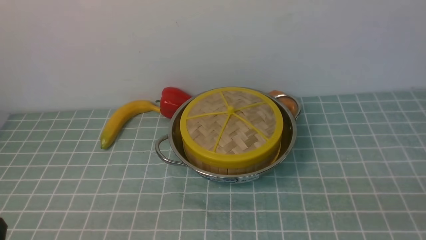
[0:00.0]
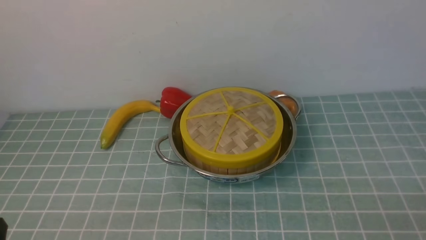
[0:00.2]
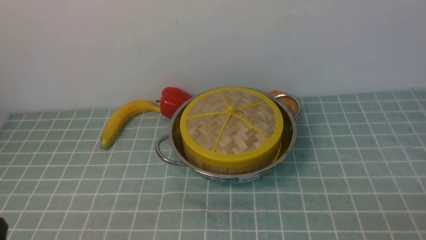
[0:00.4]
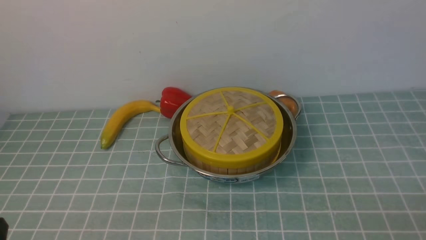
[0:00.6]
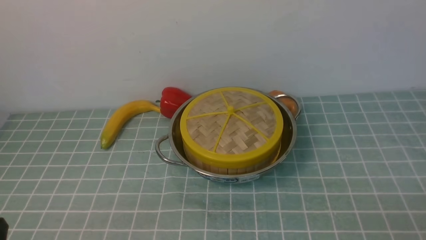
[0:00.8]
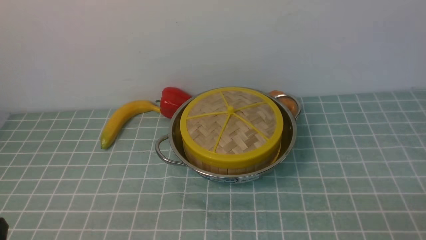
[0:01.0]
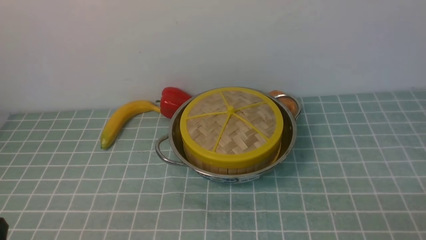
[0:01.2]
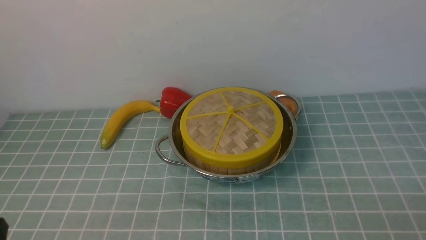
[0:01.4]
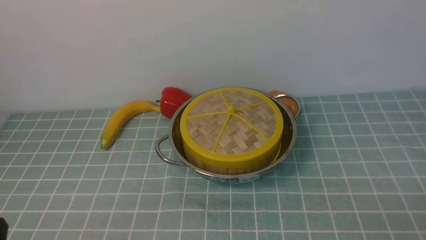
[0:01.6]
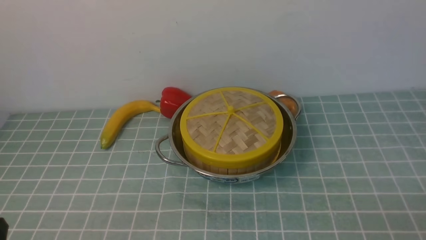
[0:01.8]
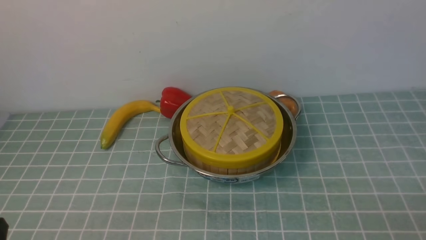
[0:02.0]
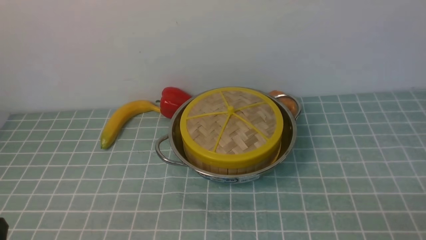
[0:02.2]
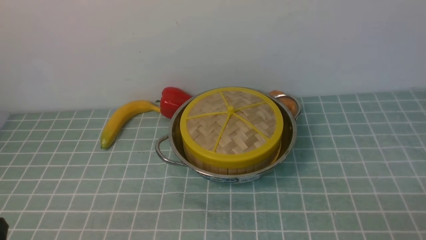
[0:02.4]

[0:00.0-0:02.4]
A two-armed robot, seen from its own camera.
Task of the whole recording: place the steamer in the pot on the blue tablecloth, and put the lid on the steamer.
0:01.2 to 0:02.4: Neither gripper changes place.

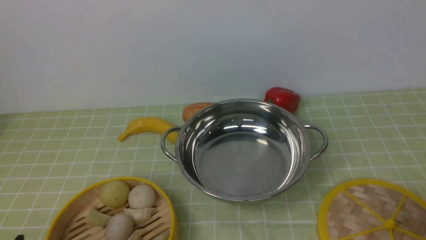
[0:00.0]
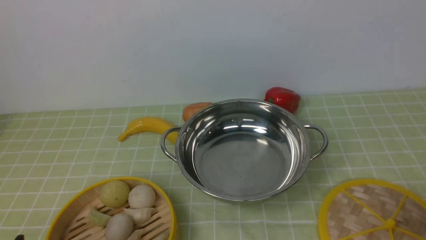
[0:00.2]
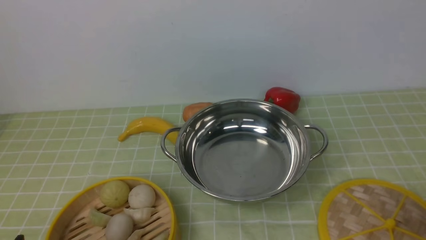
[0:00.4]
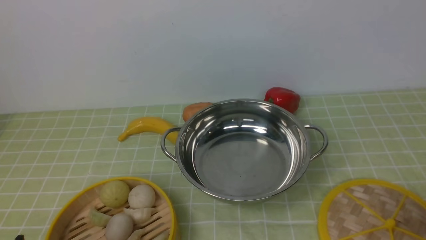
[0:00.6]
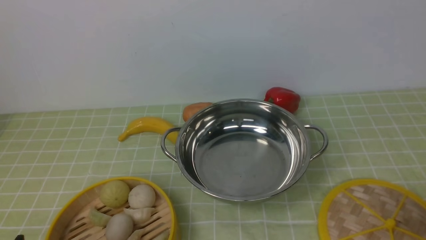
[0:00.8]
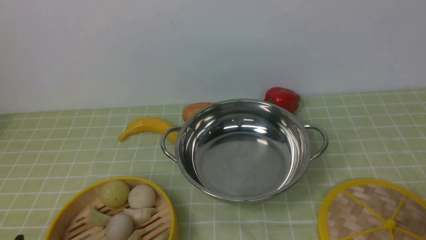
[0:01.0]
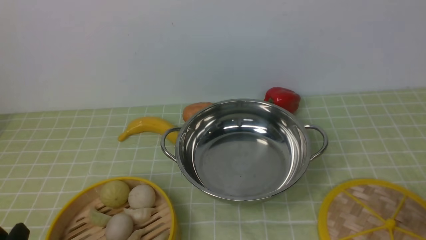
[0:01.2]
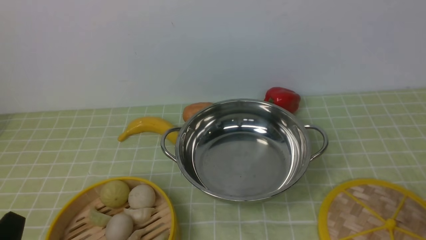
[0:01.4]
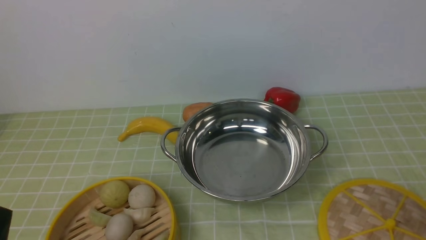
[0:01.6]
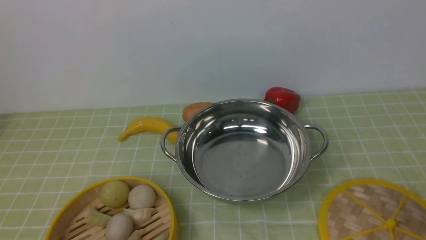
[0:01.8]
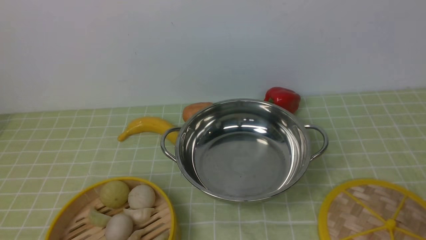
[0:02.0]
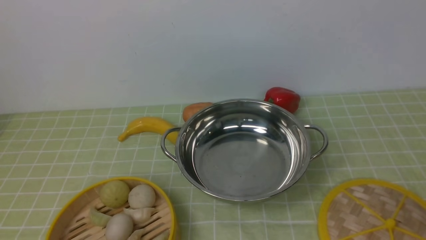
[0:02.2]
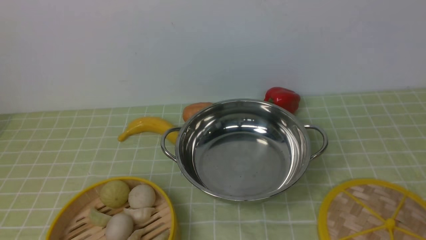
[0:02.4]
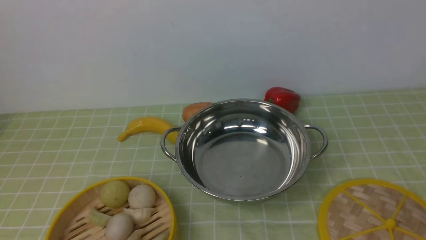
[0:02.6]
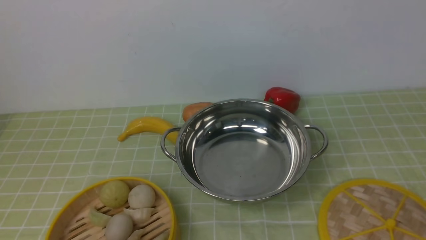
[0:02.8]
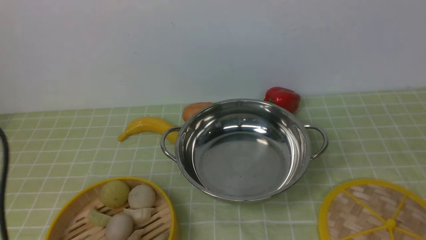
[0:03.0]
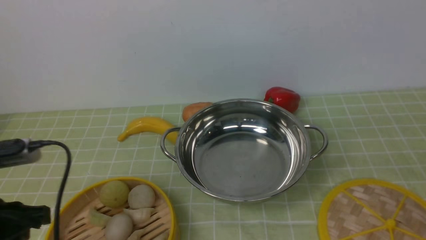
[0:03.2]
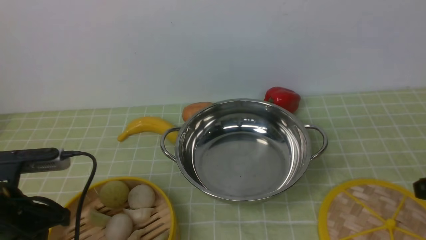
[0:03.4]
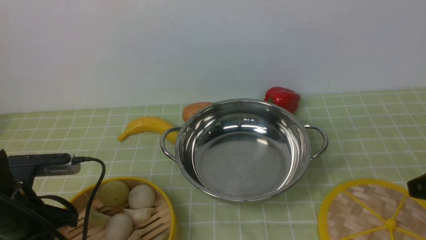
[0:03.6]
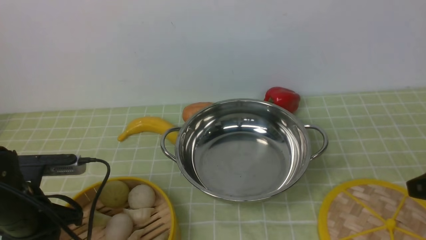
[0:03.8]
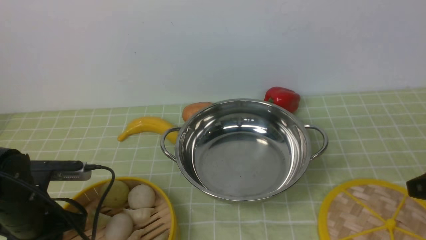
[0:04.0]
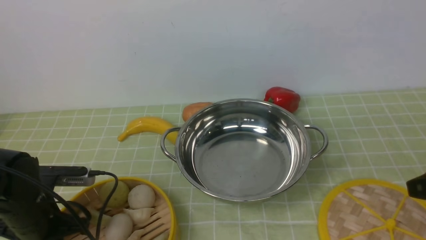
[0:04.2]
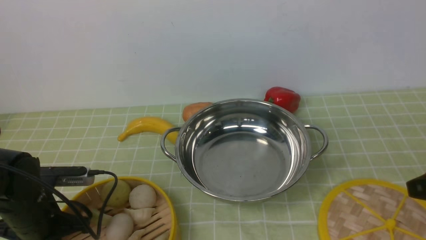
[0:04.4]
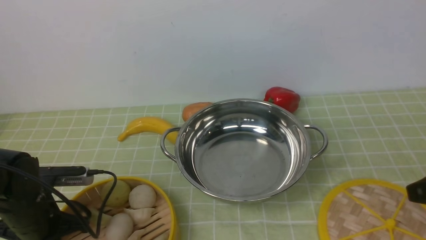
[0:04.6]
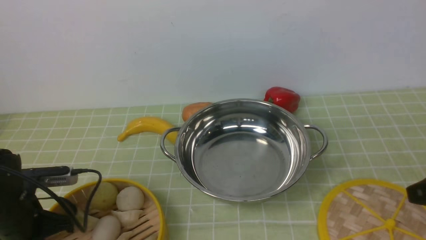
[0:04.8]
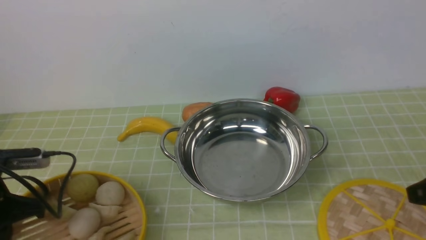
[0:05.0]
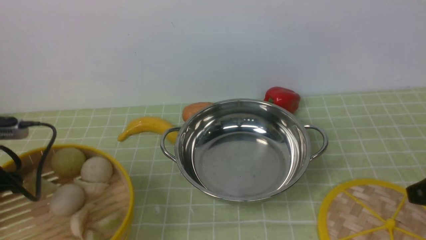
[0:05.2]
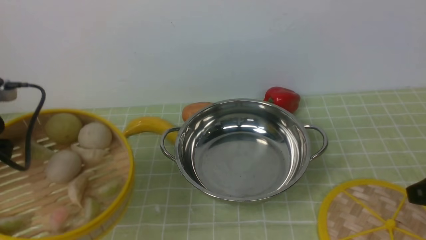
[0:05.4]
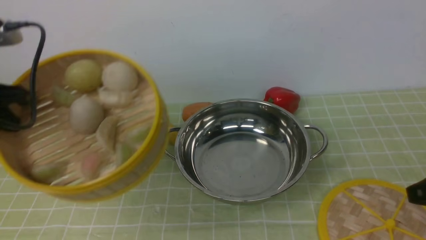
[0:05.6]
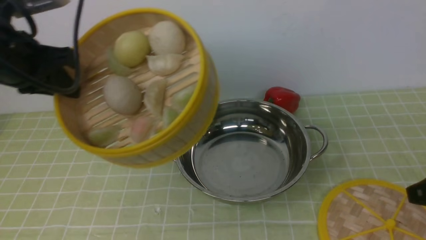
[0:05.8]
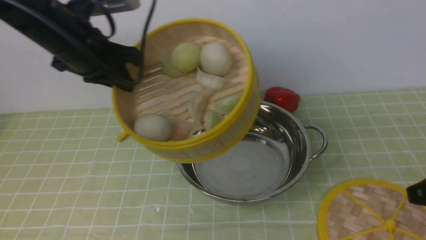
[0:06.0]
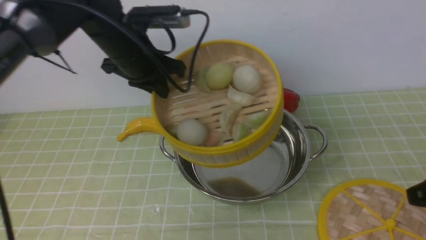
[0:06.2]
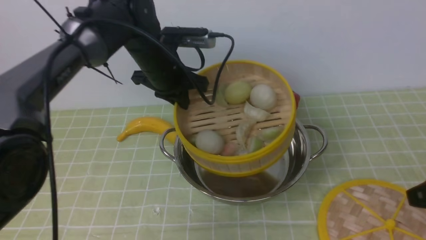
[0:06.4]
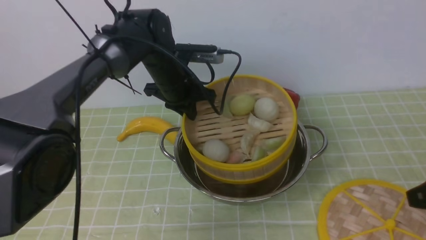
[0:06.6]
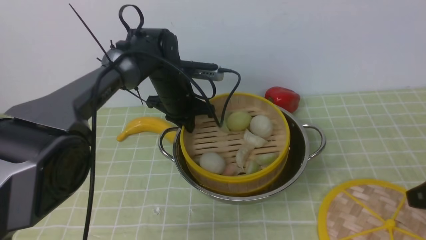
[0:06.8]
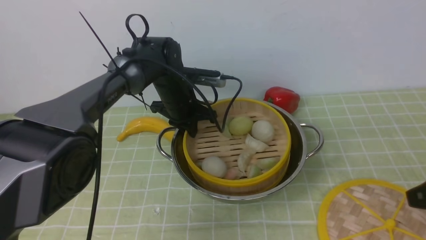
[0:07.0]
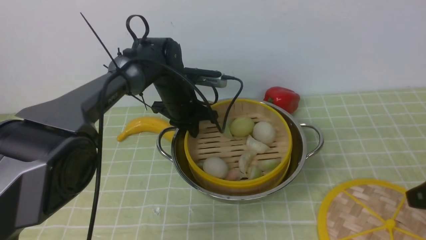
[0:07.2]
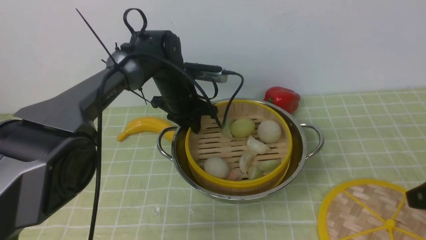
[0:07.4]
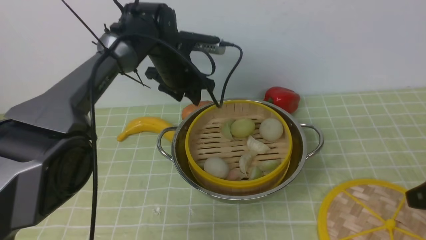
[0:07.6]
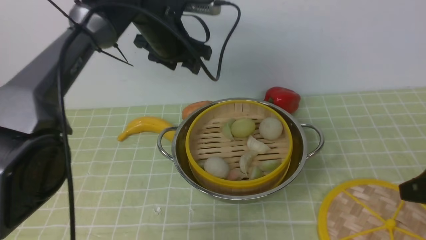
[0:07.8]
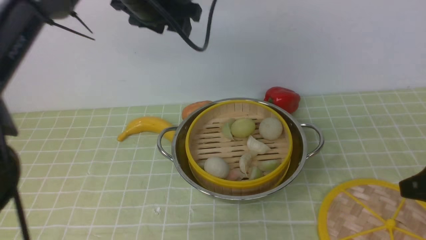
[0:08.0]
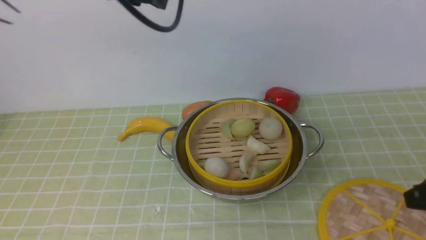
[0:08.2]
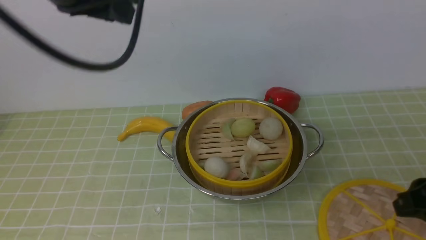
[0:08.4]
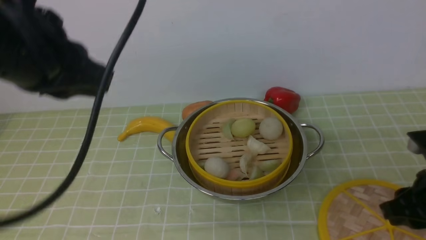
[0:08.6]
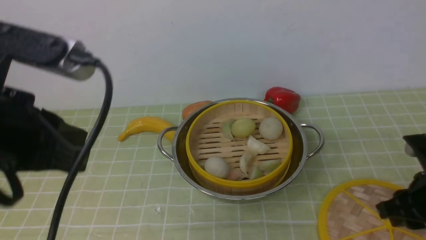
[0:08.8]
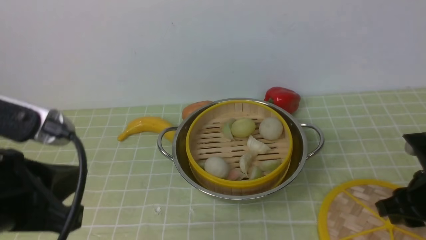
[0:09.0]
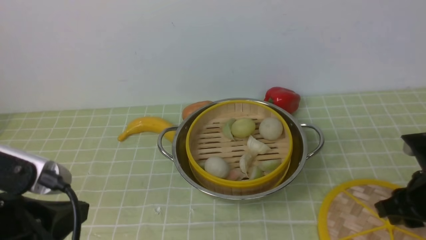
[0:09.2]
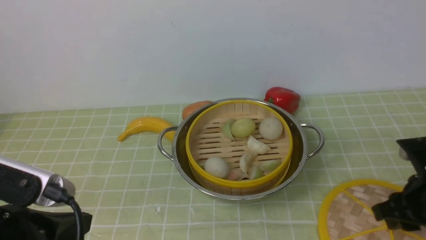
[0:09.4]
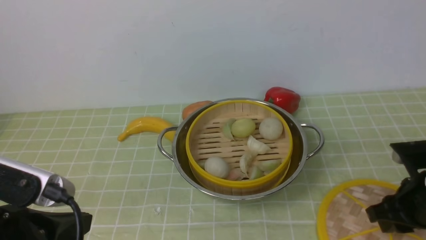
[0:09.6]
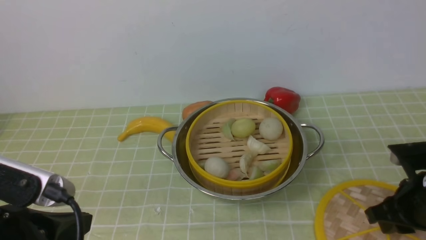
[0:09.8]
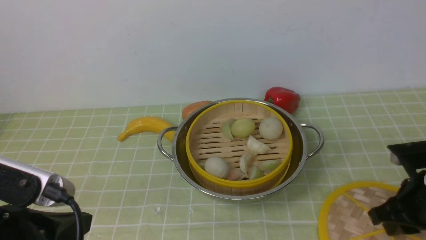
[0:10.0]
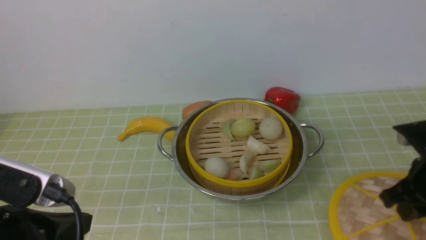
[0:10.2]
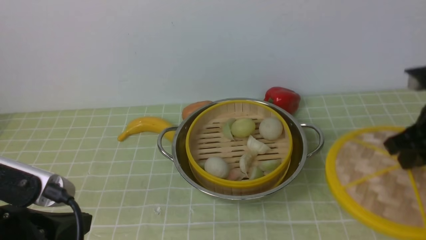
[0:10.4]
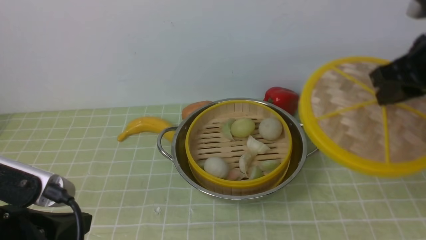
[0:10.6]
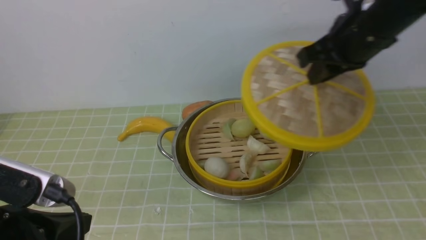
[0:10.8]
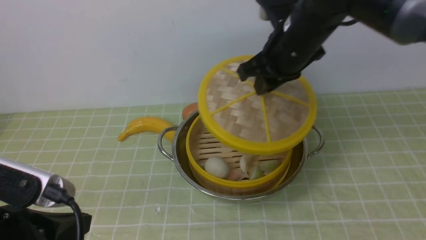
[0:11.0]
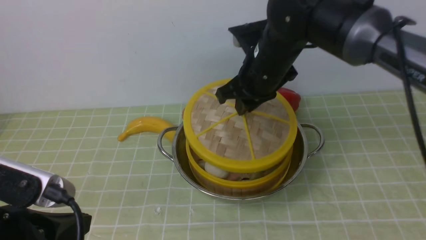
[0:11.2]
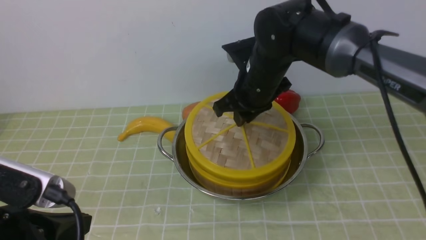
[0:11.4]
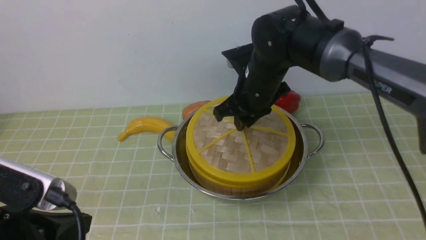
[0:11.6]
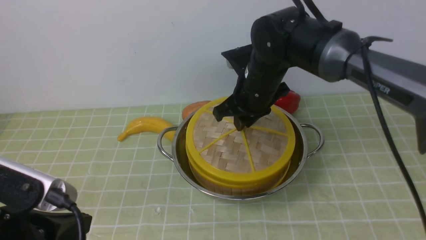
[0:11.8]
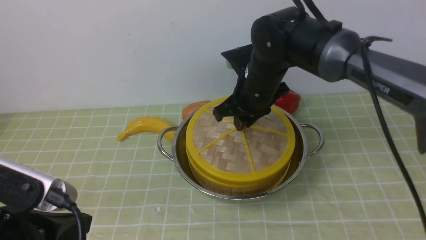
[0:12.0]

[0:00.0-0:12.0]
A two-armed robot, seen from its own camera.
Task of the whole recording: place the steamer in the pot on the green tablecloth, and put the lid on the steamer.
Step, 0:00.0 to 0:05.2: use the left arm to lift the steamer closest to it.
Step, 0:05.6 to 0:08.0: use the left arm to put the steamer into the iron steamer pot in the middle.
Step, 0:08.4 to 0:10.6: use the right arm to lift the lid of the steamer.
0:01.6 to 0:03.0: The left gripper moves upward and forward, approximately 15 cm.
0:03.0 to 0:04.4: The left gripper heads downward and forward, covering about 20 cm, and closes.
0:04.4 to 0:06.0: The left gripper is displaced upward and forward by roughly 25 cm.
0:06.0 to 0:07.6: The left gripper moves downward, to the right and forward, approximately 20 cm, and opens.
0:07.6 to 0:09.0: The left gripper goes roughly 35 cm backward, and closes, while the right gripper moves downward, about 5 cm.
0:09.0 to 0:10.4: The left gripper heads downward, covering some 5 cm, while the right gripper moves upward, approximately 5 cm, and closes.
0:10.4 to 0:12.0: The right gripper goes approximately 25 cm to the left and forward.

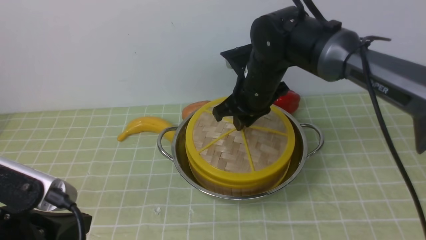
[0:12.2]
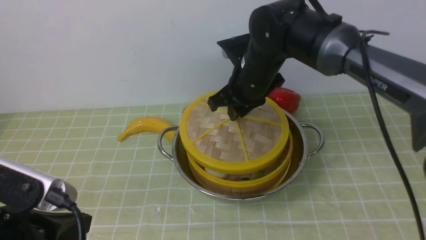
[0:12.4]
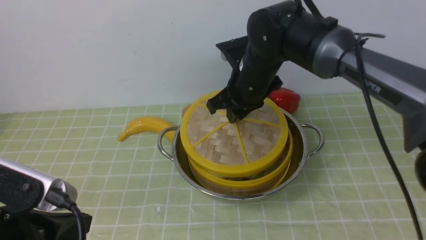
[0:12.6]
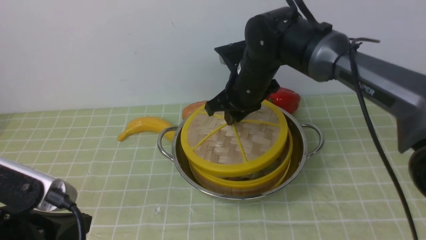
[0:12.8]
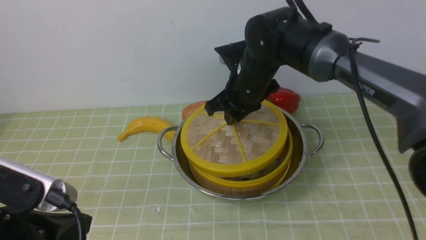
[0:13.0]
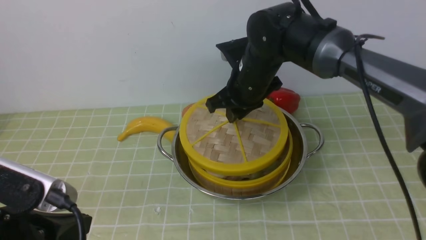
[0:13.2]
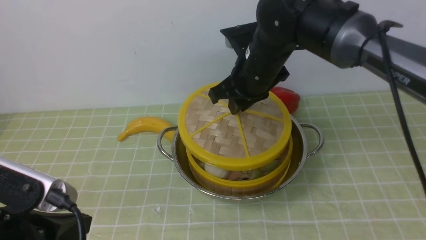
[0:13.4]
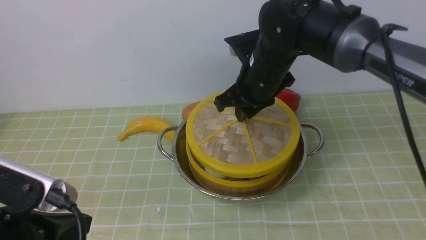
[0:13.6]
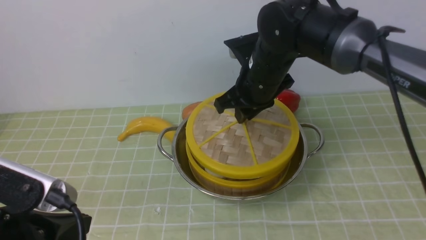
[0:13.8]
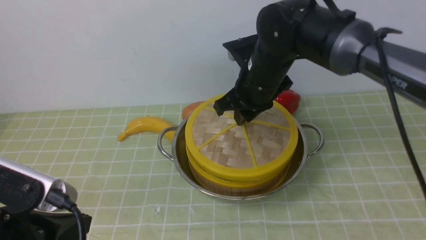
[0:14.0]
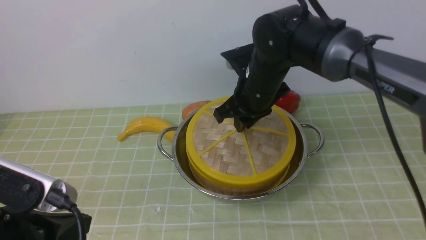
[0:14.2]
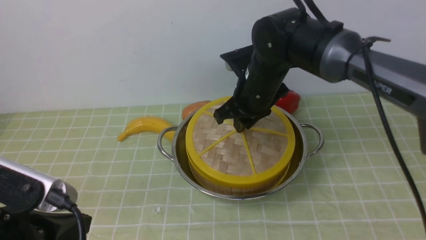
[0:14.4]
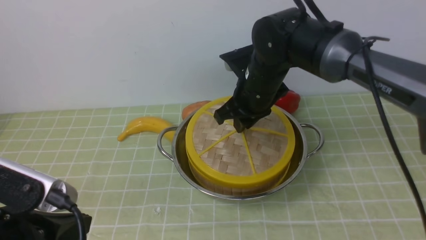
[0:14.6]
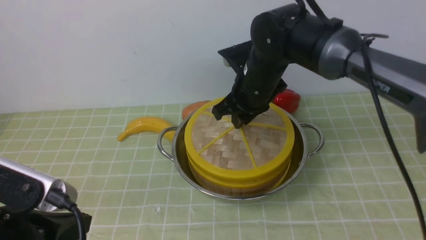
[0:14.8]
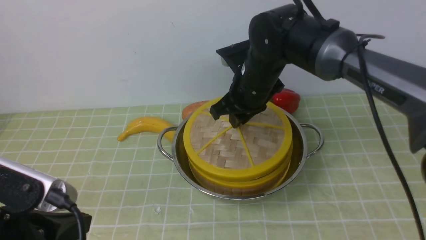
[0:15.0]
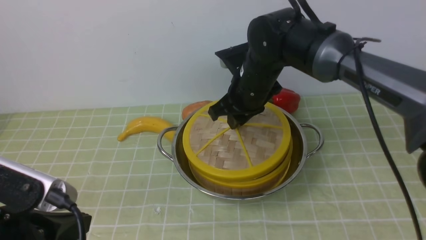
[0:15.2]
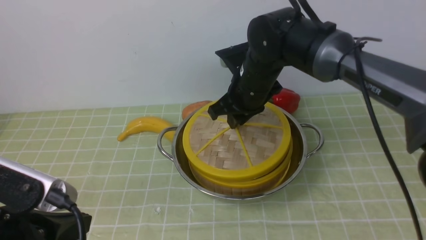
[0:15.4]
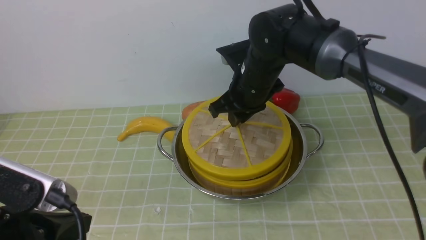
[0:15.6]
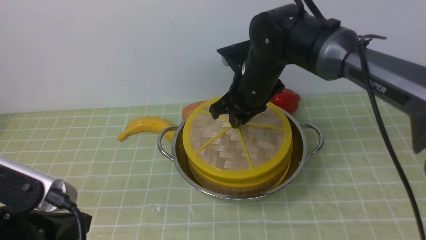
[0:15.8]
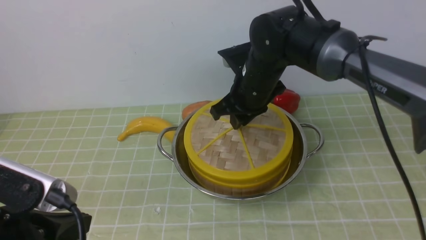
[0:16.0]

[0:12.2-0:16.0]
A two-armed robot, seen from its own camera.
Task of the whole recording: place the steamer in the pot on the green tablecloth, and put the lid on the steamer.
0:12.2 to 0:14.8: There are only small adjustments of the grippers.
0:14.8 to 0:16.0: Both grippers stay about where they are.
